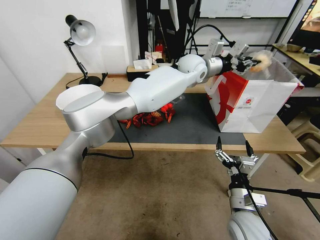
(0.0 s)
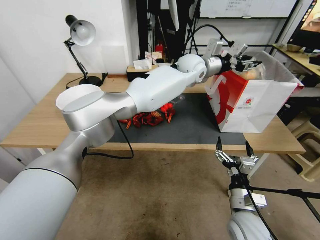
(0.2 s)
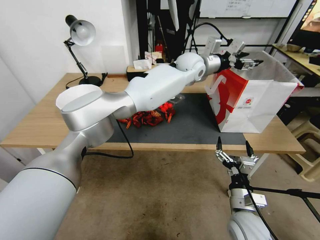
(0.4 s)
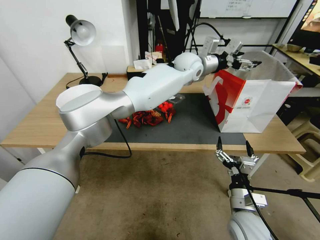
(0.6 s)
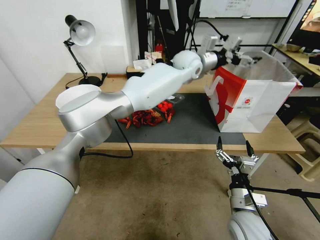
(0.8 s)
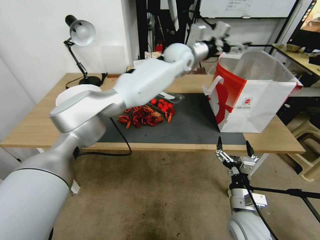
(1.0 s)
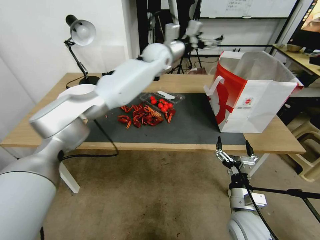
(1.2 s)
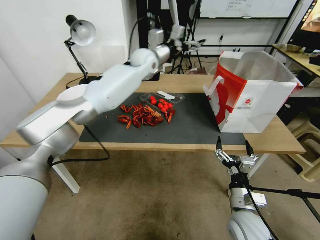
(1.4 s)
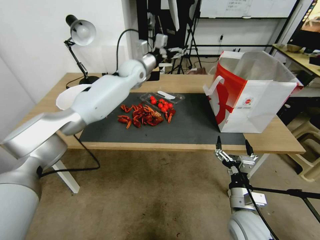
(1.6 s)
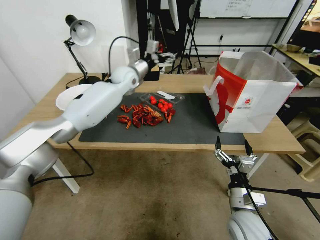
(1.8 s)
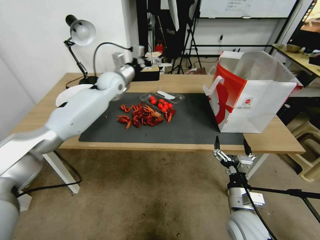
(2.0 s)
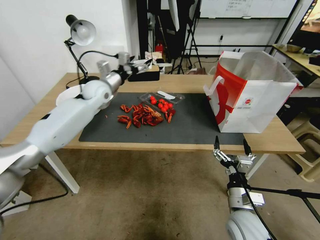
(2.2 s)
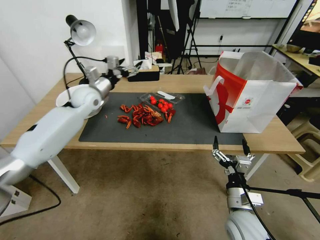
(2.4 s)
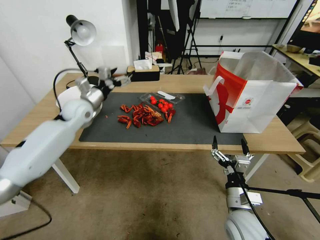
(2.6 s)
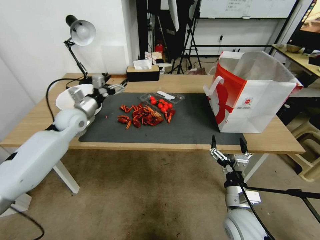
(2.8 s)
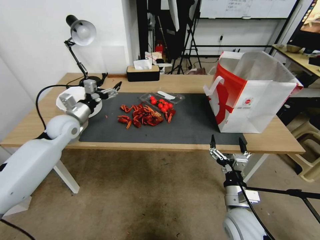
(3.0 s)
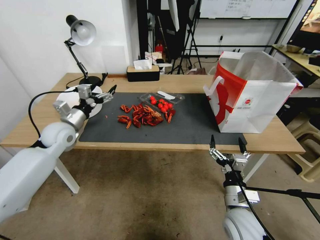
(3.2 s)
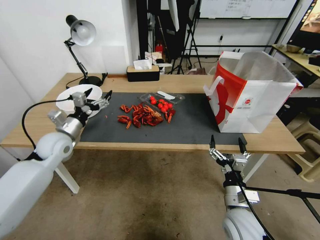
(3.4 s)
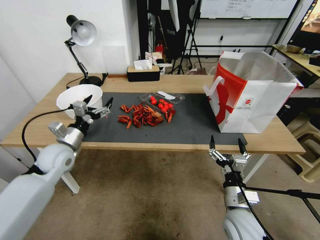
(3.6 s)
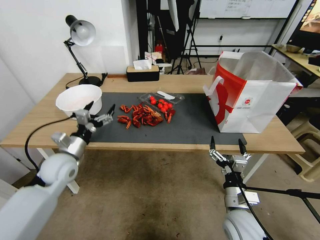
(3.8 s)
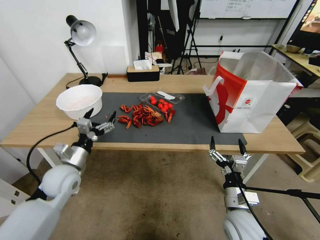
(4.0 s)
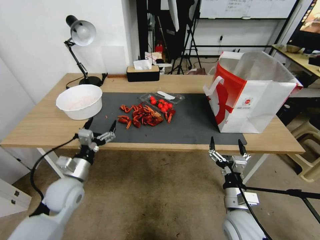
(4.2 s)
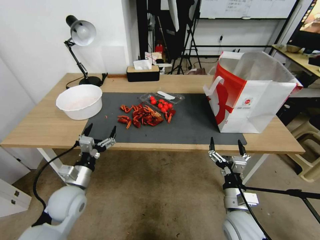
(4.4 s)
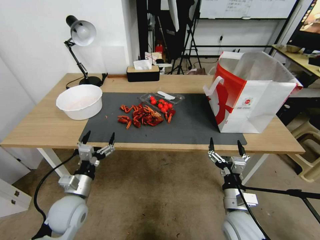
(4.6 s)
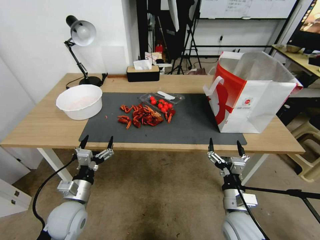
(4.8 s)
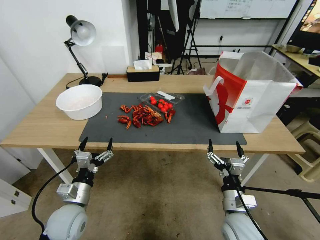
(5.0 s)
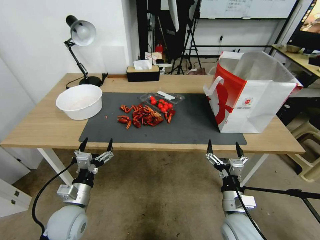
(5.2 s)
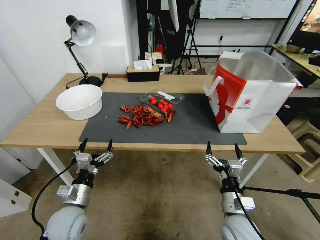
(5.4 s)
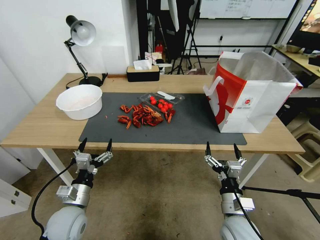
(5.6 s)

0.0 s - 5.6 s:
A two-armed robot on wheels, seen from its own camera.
0.0 s - 1.4 s: The left gripper heads to the left, covering approximately 15 cm, and opens up.
1.4 s - 2.8 s: The left gripper travels to the left, backward and downward by about 30 cm.
2.8 s - 4.2 s: The left gripper moves backward and downward, approximately 25 cm.
4.2 s - 5.6 s: The left gripper goes some 5 cm backward.
